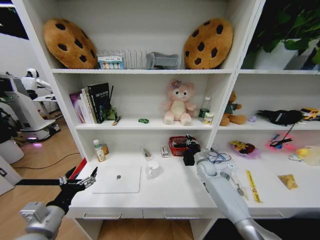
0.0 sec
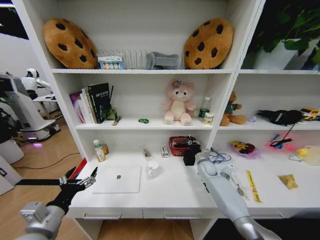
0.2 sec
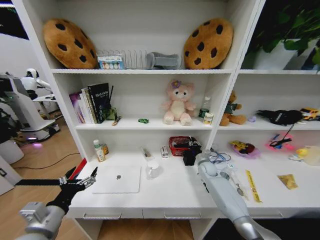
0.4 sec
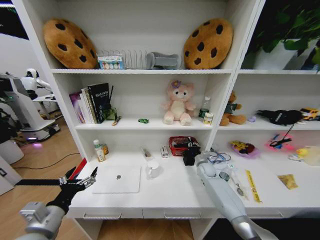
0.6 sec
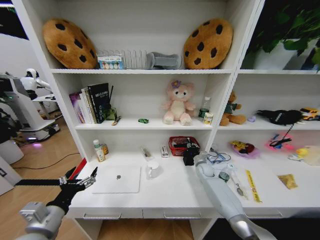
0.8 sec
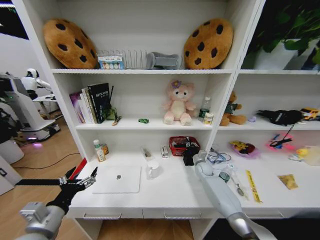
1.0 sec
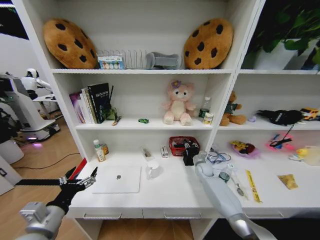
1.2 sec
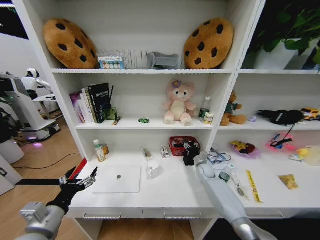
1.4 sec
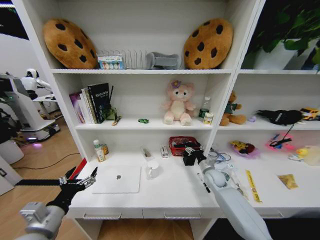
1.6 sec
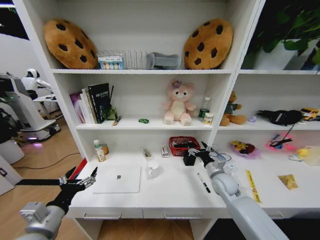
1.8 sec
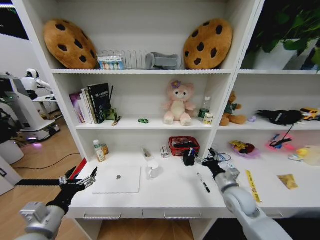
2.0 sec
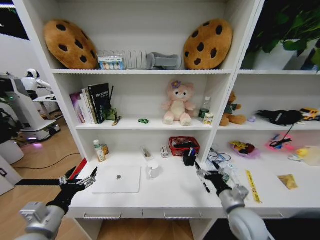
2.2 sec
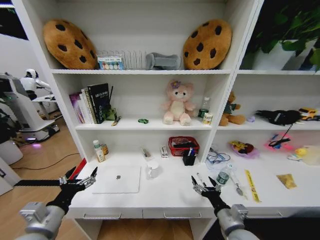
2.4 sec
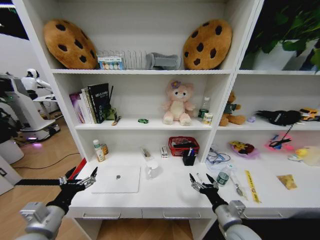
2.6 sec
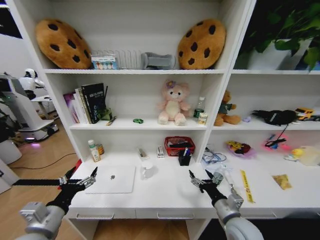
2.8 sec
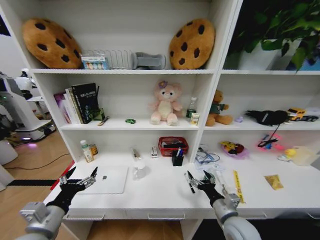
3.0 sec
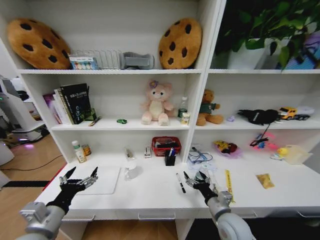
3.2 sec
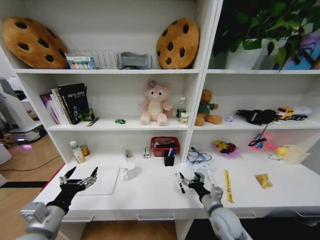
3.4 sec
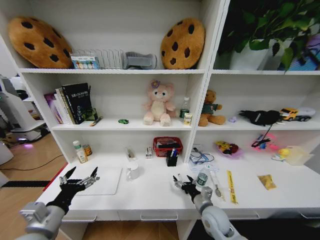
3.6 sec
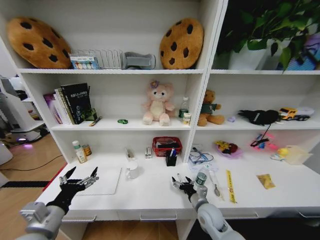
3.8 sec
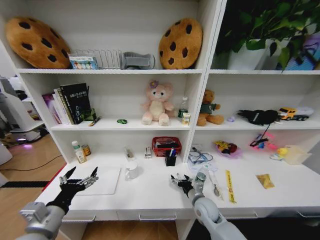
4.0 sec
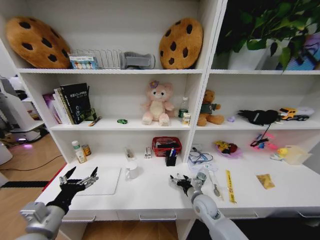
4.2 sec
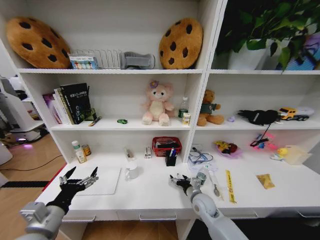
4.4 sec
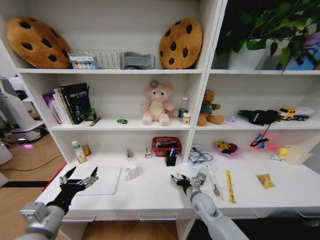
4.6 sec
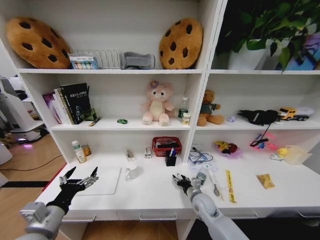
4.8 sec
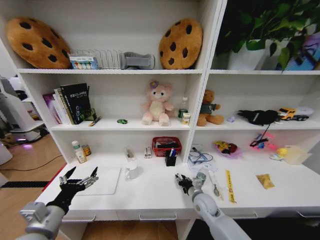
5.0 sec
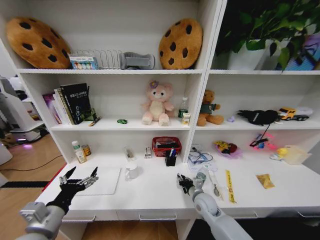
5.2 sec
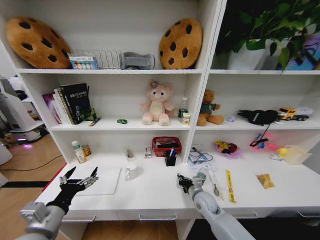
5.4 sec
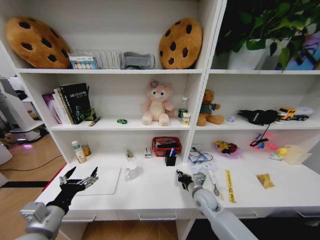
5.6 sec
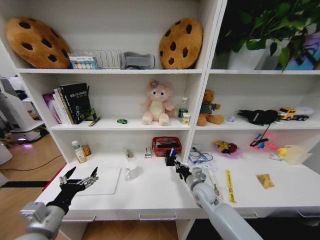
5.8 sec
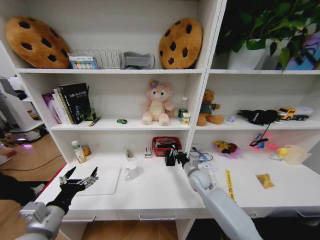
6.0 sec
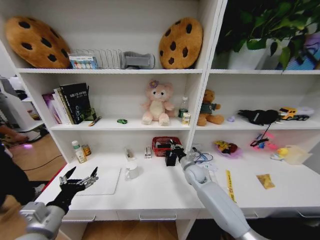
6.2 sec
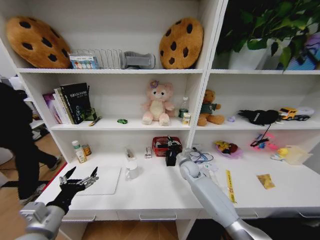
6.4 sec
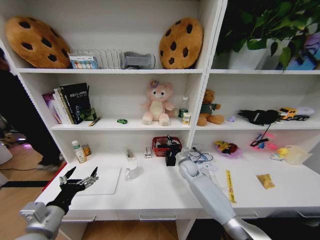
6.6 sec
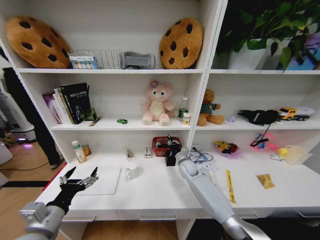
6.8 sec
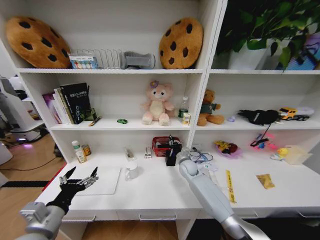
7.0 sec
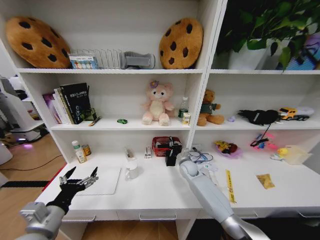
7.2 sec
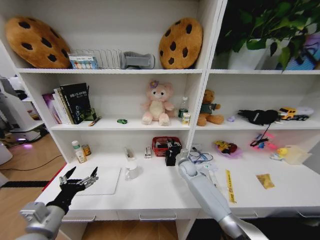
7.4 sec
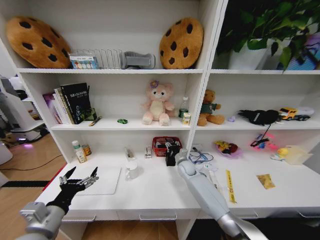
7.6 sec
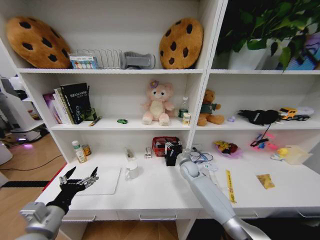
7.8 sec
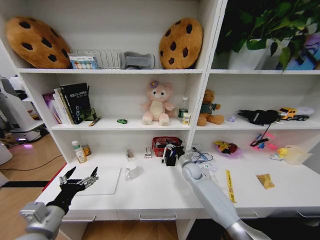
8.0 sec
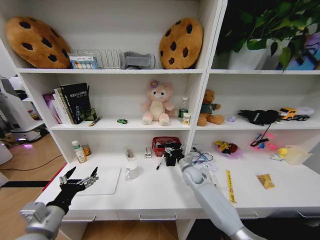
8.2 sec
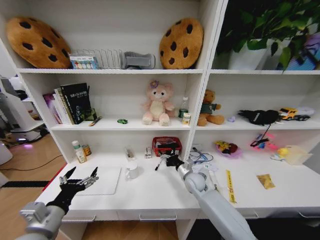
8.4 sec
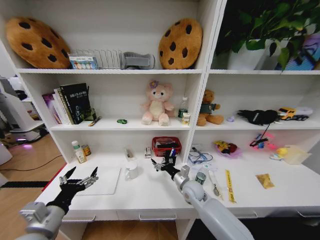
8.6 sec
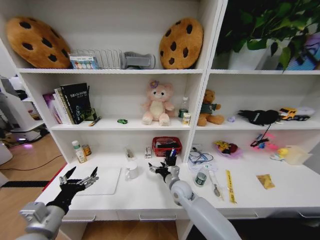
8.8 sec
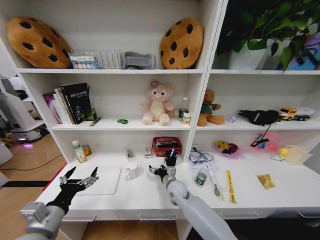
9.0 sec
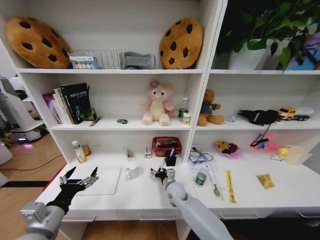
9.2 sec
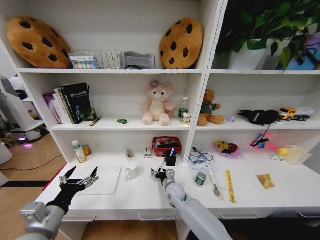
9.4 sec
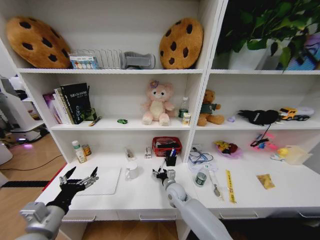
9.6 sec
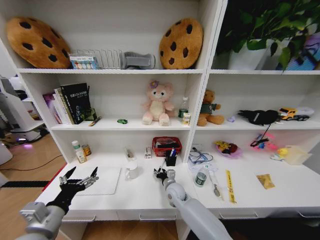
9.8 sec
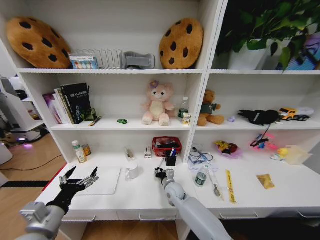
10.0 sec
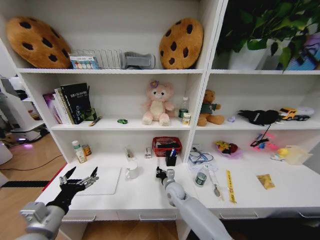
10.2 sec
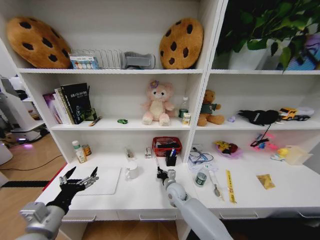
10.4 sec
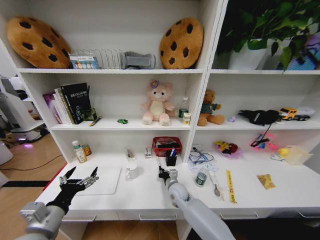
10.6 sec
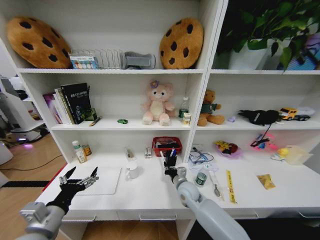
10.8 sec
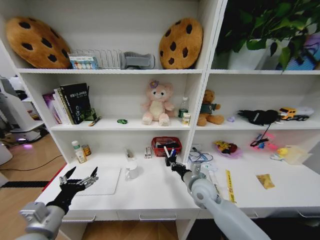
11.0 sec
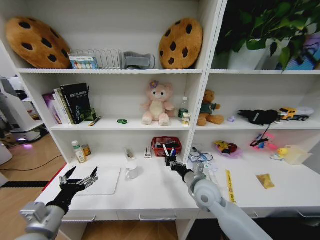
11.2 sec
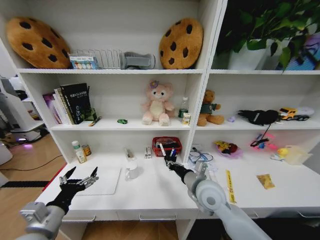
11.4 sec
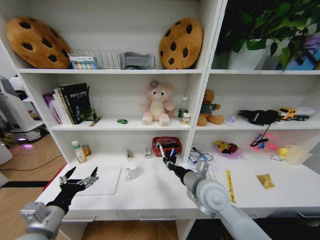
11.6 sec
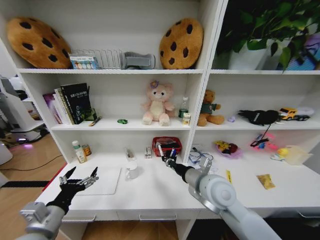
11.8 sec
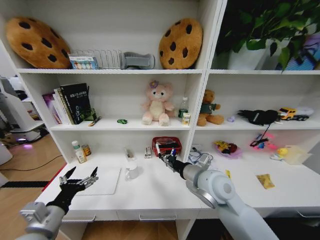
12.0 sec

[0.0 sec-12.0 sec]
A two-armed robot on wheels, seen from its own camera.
Task of the whole recording: Organize the objects on the table.
0.0 sec to 1.6 sec: The right gripper moves approximately 5 cm, and opens.
1.6 sec to 3.0 sec: The right gripper shifts some 25 cm backward.
3.0 sec to 4.4 sec: The right gripper heads forward, downward and to the left, covering roughly 15 cm.
4.4 sec to 6.0 sec: The right gripper heads forward and upward, covering approximately 10 cm, and closes.
6.0 sec to 7.6 sec: The right gripper goes approximately 10 cm forward, and opens.
7.6 sec to 9.0 sec: The right gripper heads backward and to the left, covering about 15 cm, and opens its fingers.
9.0 sec to 10.4 sec: The right gripper closes up.
10.4 sec to 12.0 sec: The right gripper goes approximately 25 cm upward.

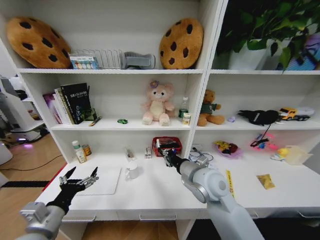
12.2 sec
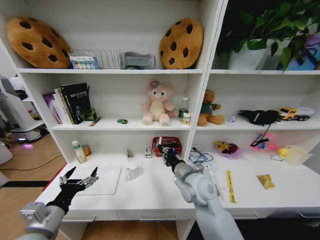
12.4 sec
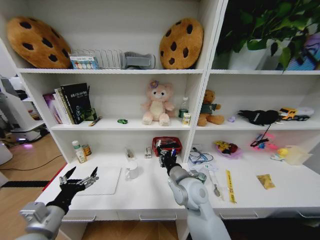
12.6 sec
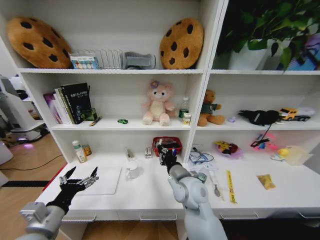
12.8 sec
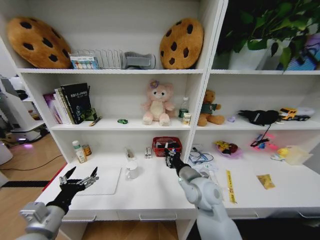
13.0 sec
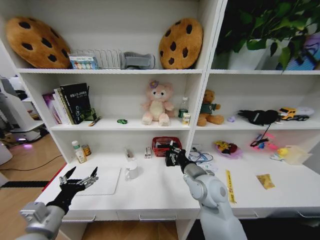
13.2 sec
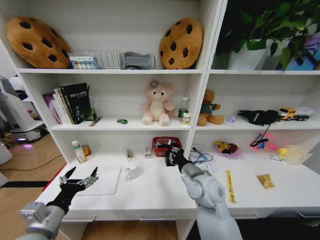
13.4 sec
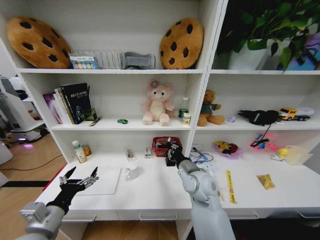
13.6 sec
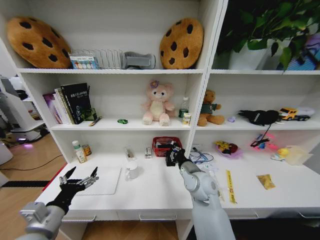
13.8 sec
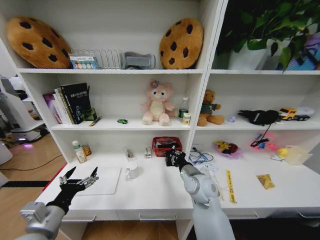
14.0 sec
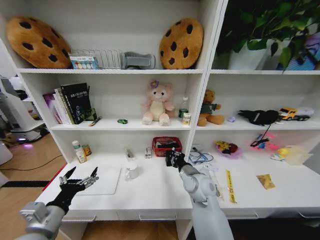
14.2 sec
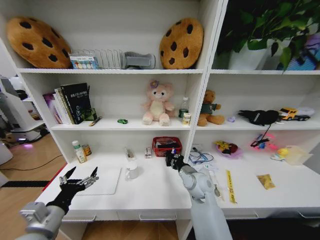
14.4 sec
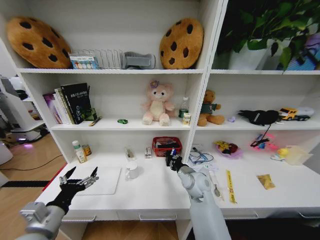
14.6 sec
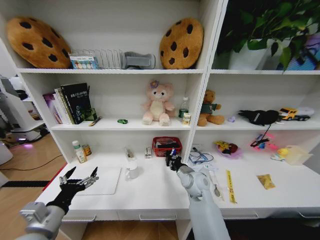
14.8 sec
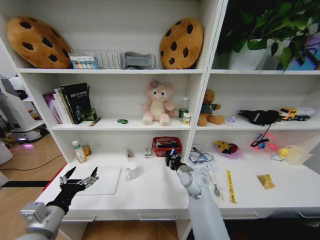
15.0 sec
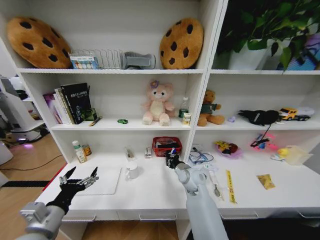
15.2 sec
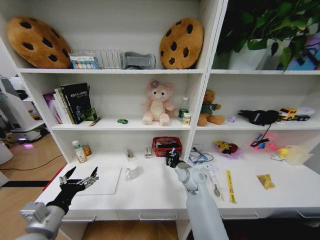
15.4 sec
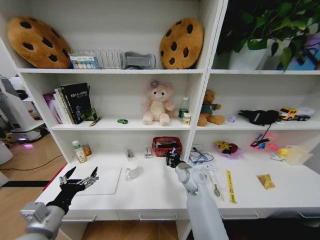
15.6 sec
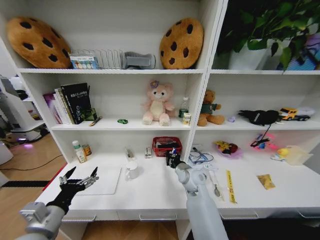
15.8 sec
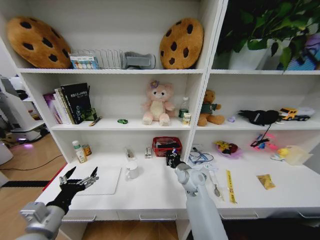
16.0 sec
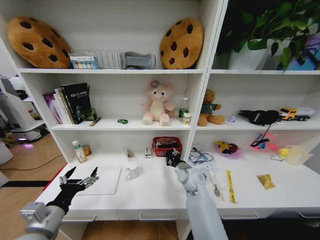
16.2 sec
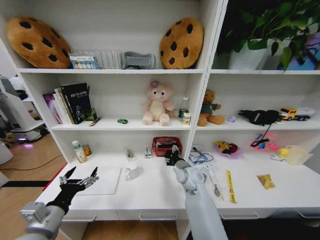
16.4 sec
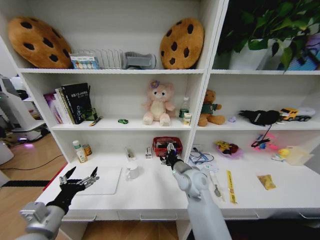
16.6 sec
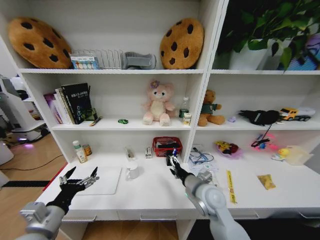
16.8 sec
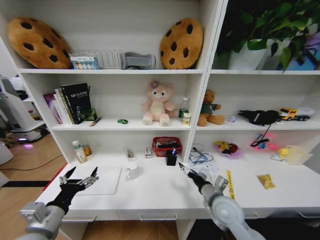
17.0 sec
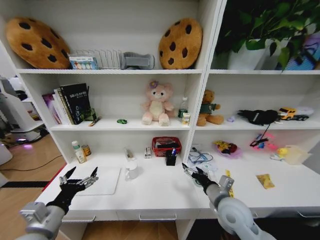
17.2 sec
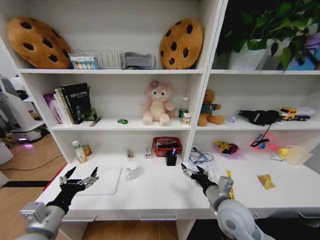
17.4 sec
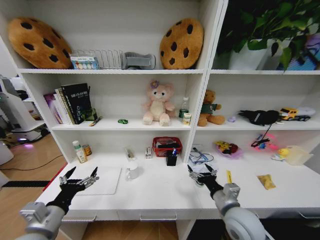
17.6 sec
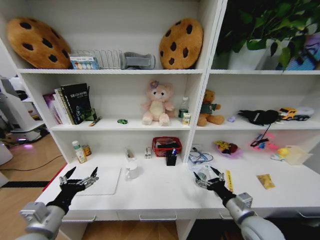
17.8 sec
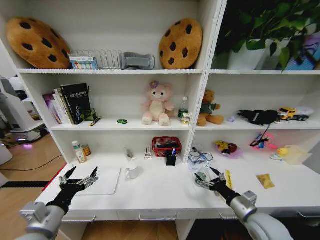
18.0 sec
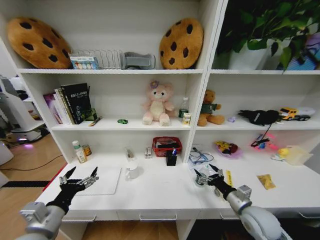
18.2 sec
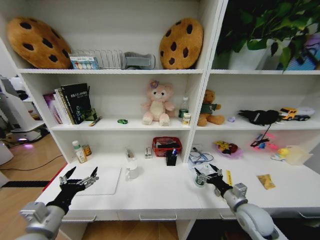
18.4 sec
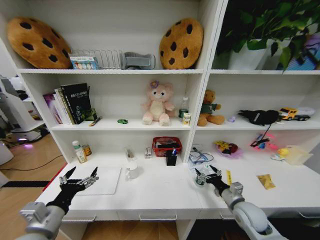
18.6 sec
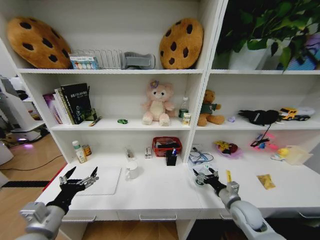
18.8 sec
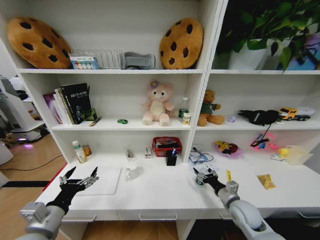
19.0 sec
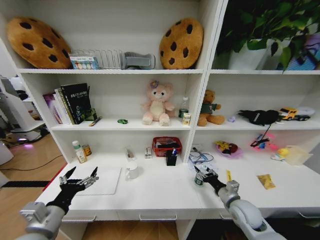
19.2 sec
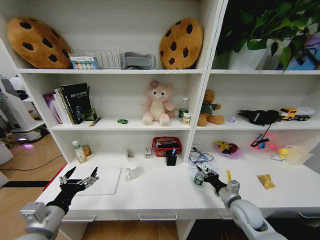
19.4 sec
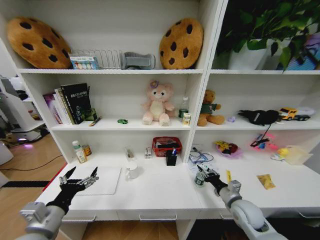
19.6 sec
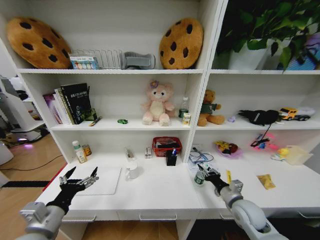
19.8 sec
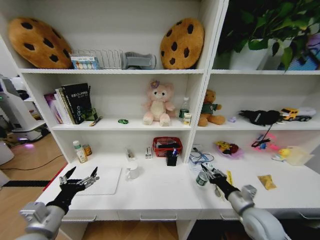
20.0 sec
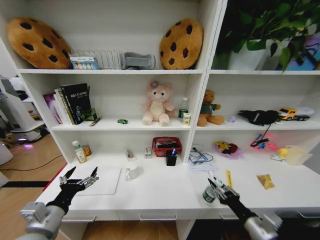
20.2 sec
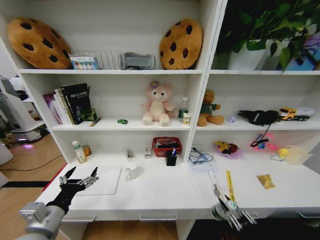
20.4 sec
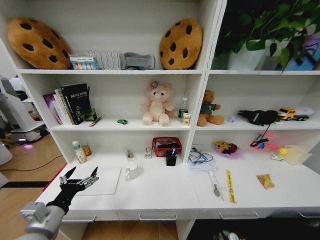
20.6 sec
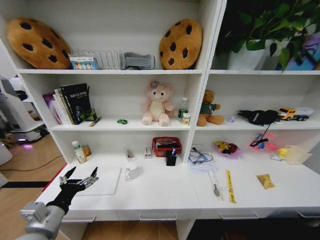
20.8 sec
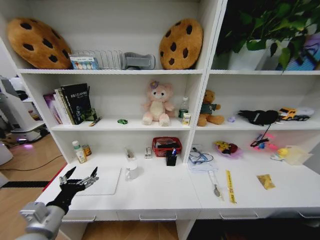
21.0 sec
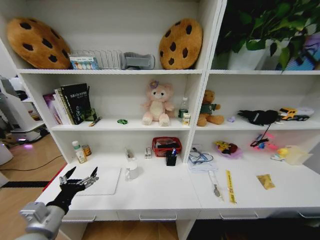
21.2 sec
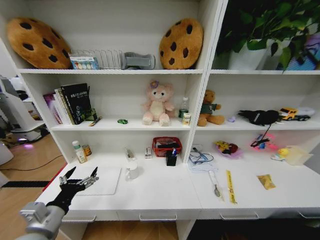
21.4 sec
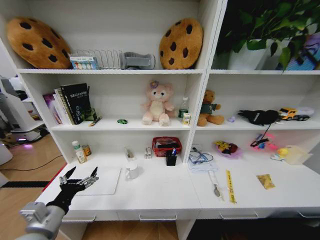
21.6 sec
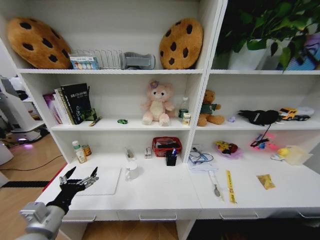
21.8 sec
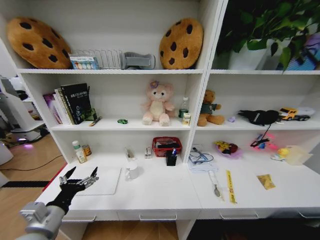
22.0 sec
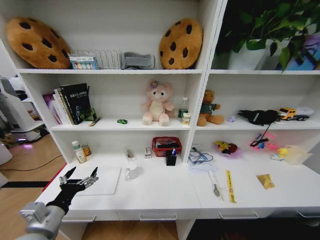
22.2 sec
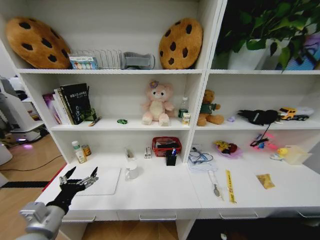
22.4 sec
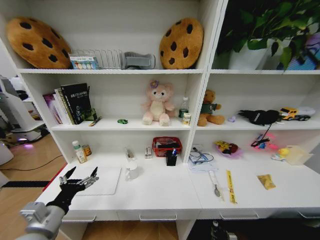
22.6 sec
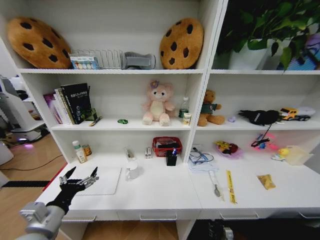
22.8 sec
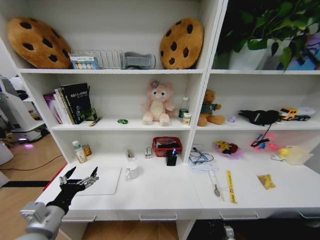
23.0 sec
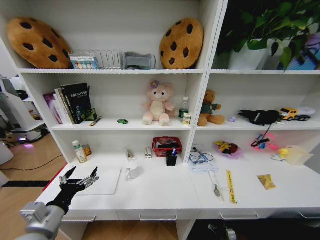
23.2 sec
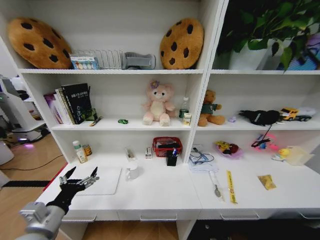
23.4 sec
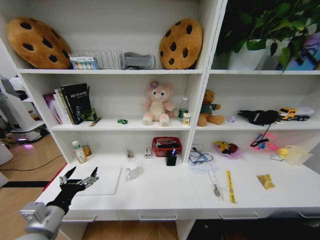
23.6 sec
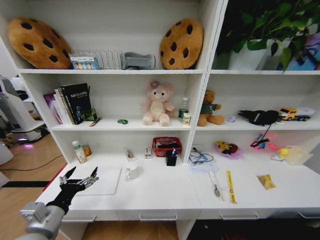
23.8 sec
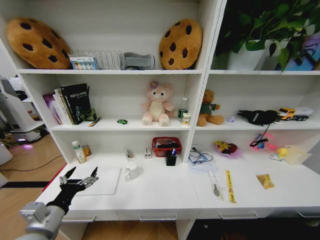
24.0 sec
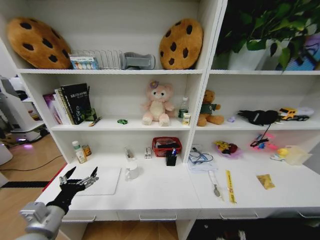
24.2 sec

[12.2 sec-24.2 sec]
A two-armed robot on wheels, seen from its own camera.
Task of the whole recording: Organize the objects on the table.
12.2 sec to 13.8 sec: The right gripper moves downward, approximately 5 cm.
13.8 sec to 15.2 sec: The right gripper heads downward and forward, covering roughly 10 cm.
15.2 sec to 16.6 sec: The right gripper changes place by about 5 cm, and opens up.
16.6 sec to 18.2 sec: The right gripper goes about 25 cm to the right and backward.
18.2 sec to 19.8 sec: The right gripper closes.
19.8 sec to 21.2 sec: The right gripper travels backward and downward by some 40 cm.
21.2 sec to 22.6 sec: The right gripper moves forward, about 20 cm.
22.6 sec to 24.2 sec: The right gripper moves upward and backward, about 25 cm, and opens its fingers.
